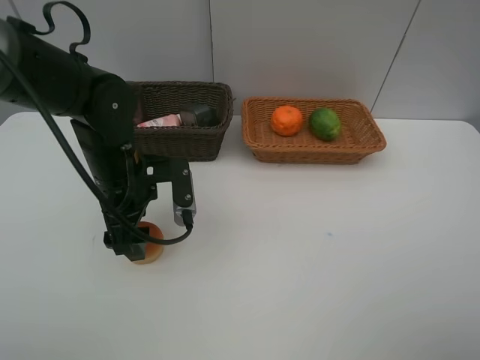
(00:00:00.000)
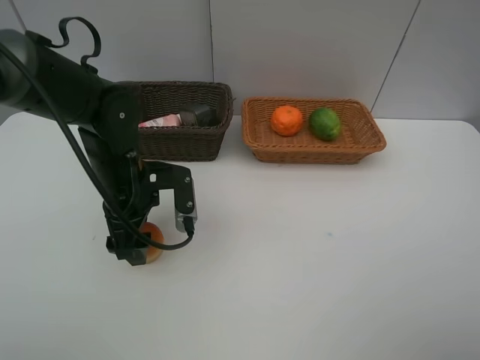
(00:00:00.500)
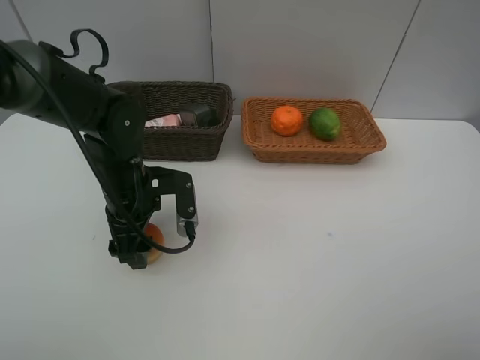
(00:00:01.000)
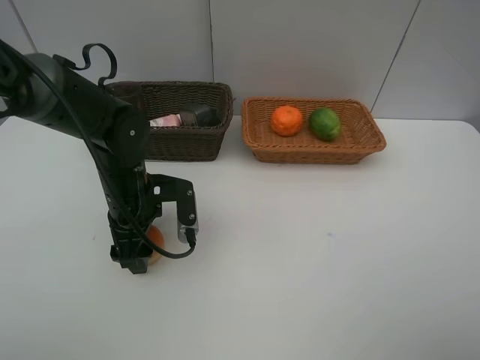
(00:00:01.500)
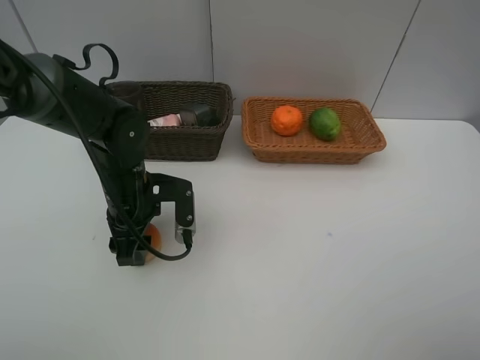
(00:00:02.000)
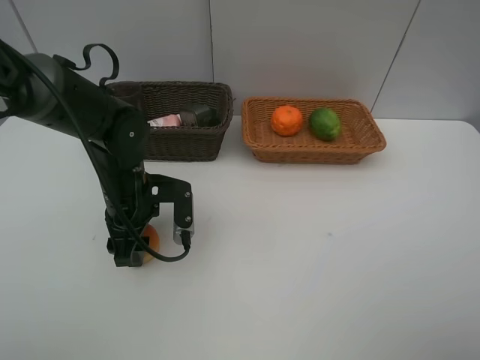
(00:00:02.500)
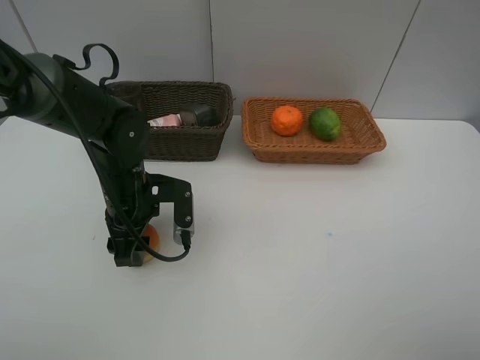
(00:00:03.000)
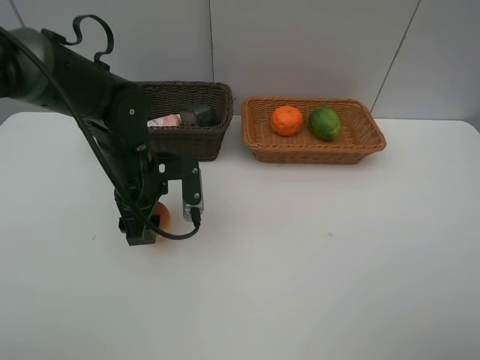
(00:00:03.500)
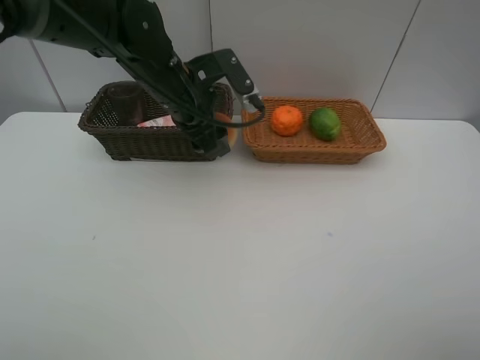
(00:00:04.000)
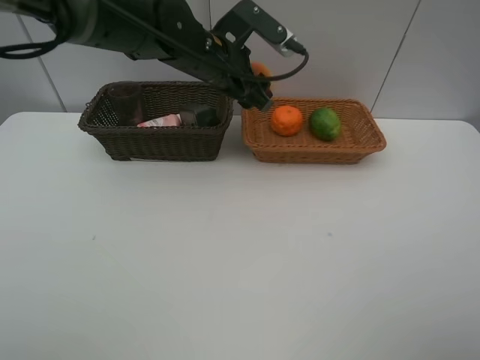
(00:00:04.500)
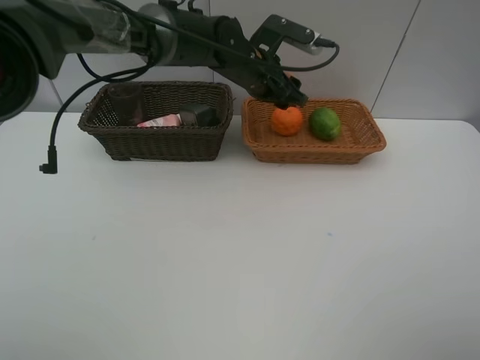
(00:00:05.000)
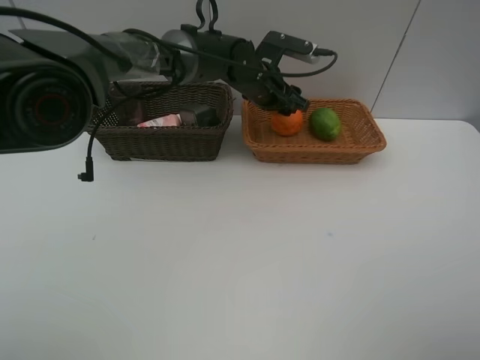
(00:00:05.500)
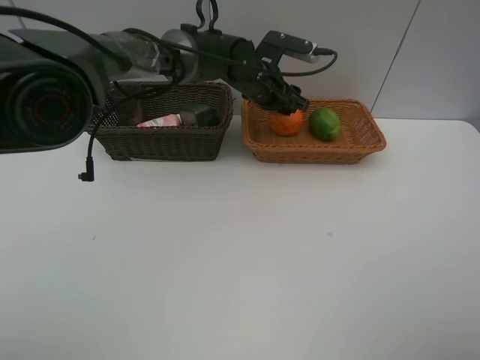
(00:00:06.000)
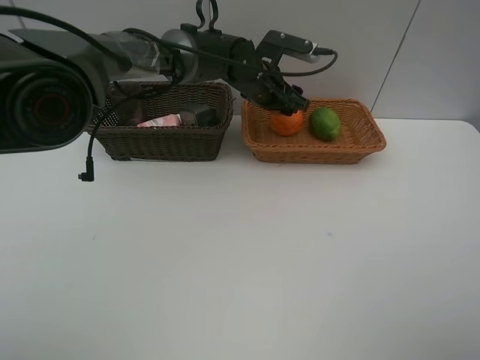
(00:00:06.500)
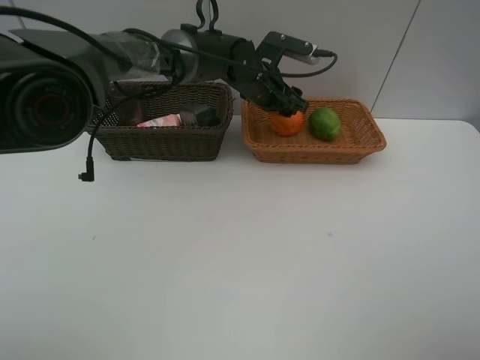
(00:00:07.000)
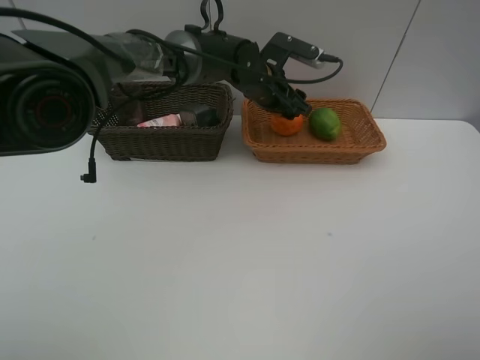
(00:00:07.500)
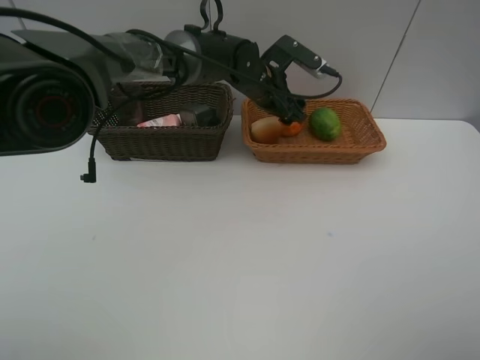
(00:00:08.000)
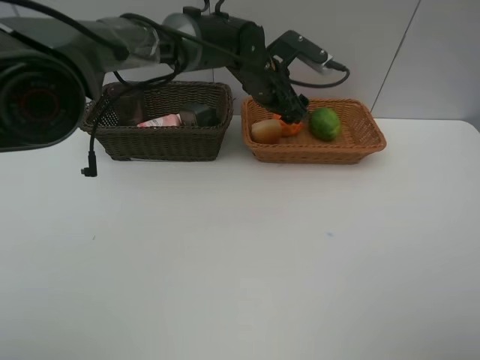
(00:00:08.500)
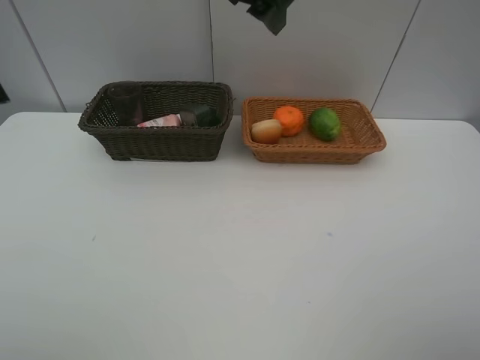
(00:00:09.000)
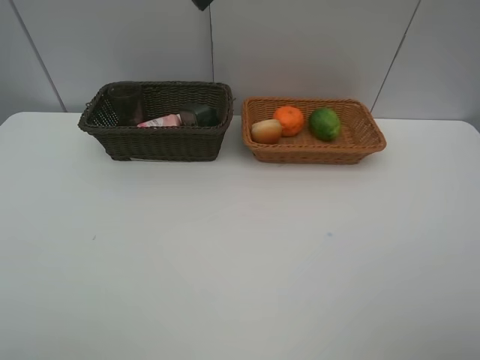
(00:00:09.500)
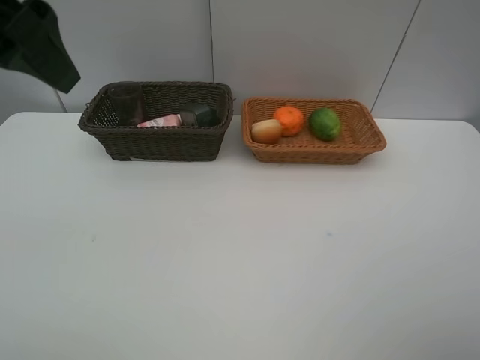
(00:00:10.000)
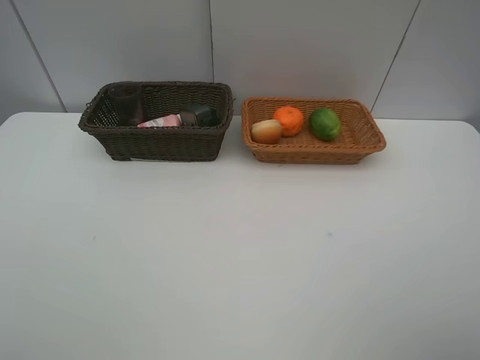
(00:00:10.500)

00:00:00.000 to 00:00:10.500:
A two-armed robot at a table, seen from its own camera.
Task of the whole recording: place multiple objects separately in different baskets.
00:00:00.000 to 00:00:02.000: The grippers stay close to where they were, moving slightly.
00:00:02.000 to 00:00:04.000: The left gripper shifts roughly 15 cm upward, forward and to the right.
00:00:04.000 to 00:00:06.500: The left gripper goes approximately 15 cm to the right and forward.
00:00:06.500 to 00:00:08.500: The grippers move only a little.
00:00:08.500 to 00:00:10.500: The left gripper is displaced backward, to the left and upward by approximately 50 cm.

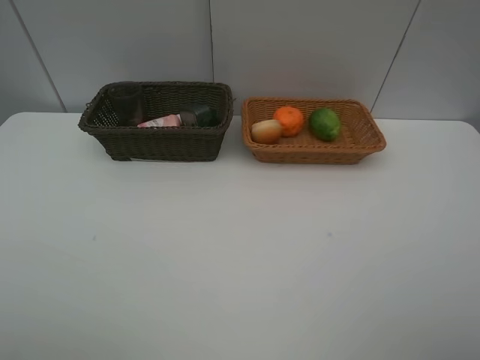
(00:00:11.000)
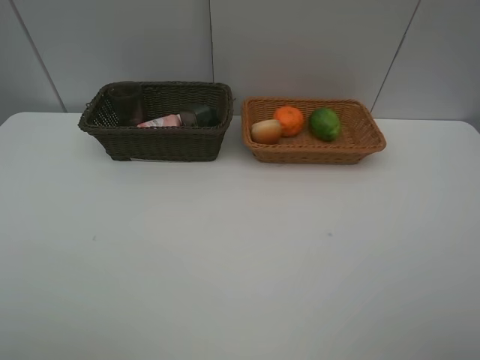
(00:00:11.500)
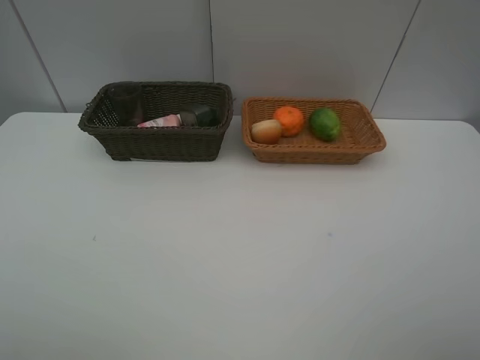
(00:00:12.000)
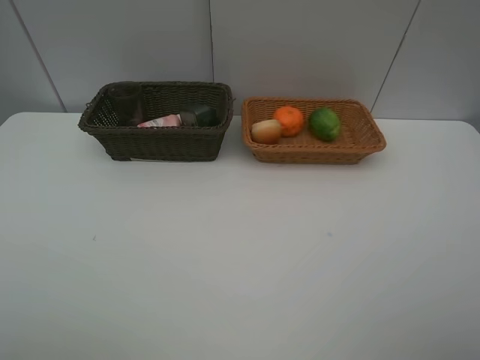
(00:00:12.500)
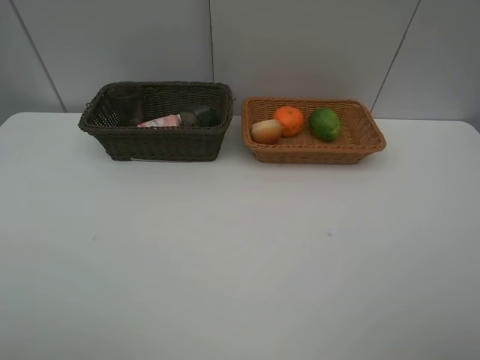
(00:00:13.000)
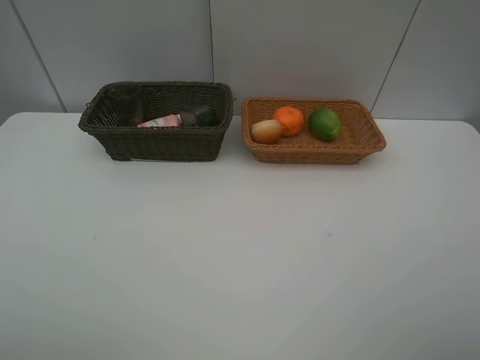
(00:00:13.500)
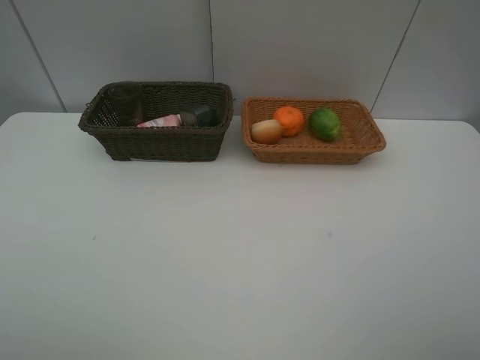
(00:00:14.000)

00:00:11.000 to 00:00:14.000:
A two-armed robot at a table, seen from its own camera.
Task of the whole recording: place multiple objects separately in different baskets.
00:00:12.500 to 00:00:14.000: Both grippers stay put.

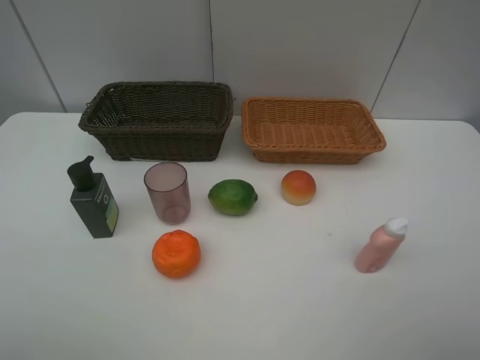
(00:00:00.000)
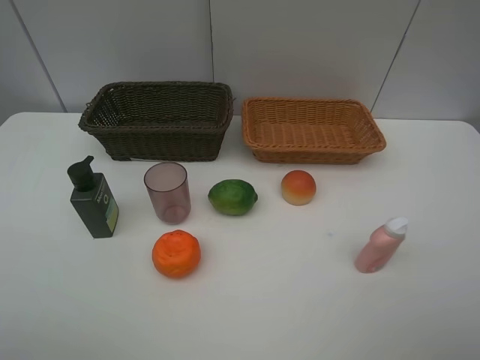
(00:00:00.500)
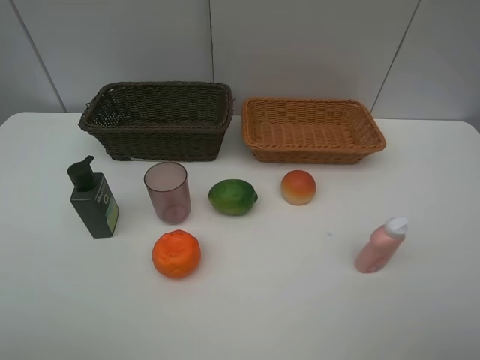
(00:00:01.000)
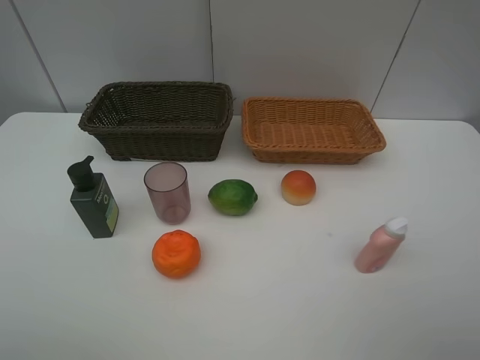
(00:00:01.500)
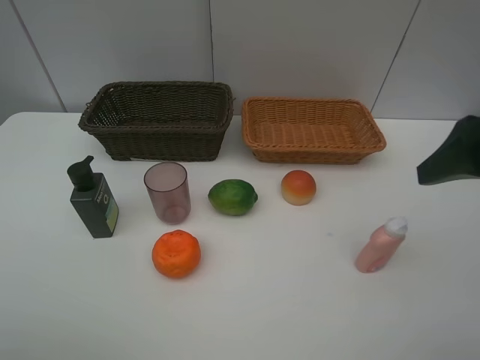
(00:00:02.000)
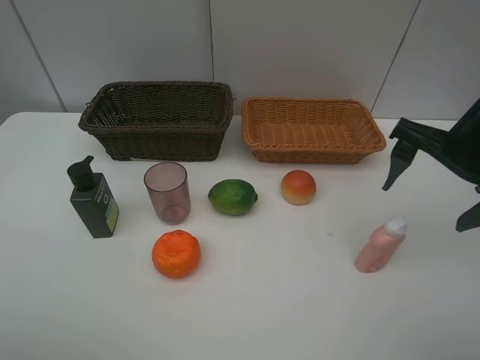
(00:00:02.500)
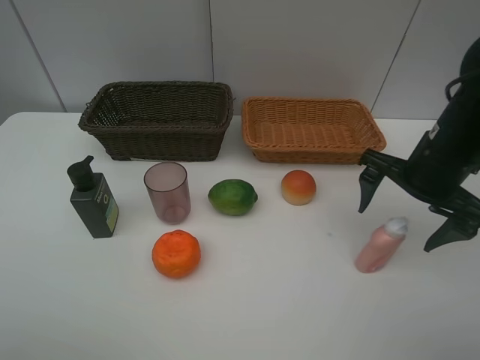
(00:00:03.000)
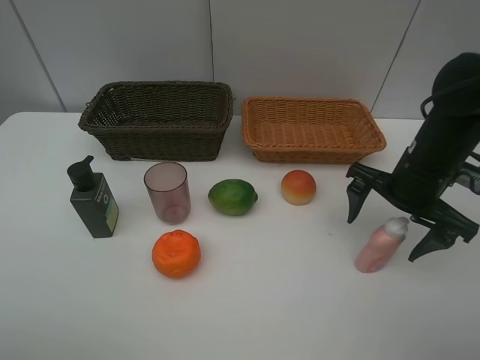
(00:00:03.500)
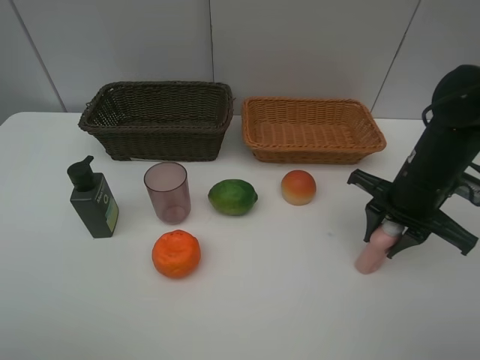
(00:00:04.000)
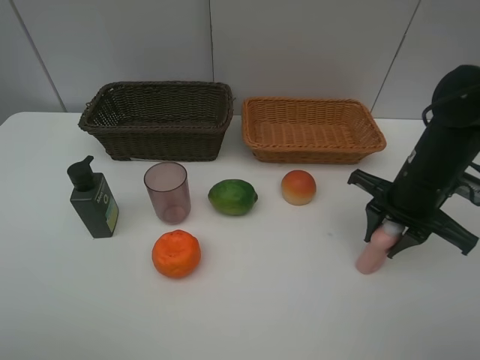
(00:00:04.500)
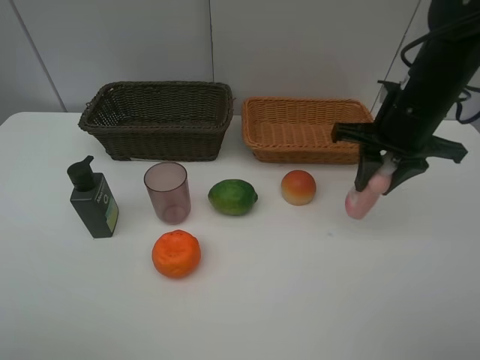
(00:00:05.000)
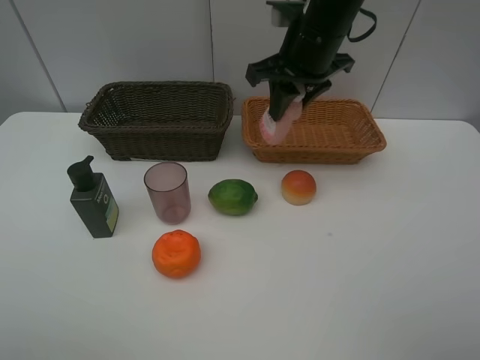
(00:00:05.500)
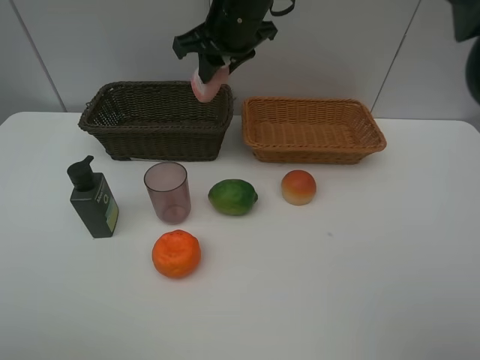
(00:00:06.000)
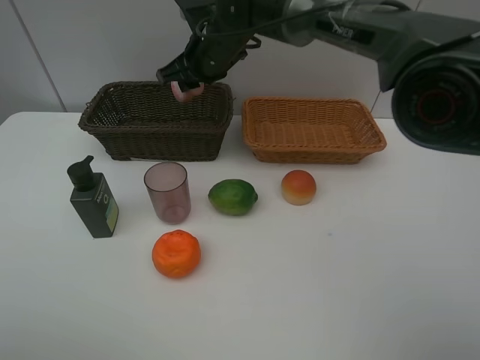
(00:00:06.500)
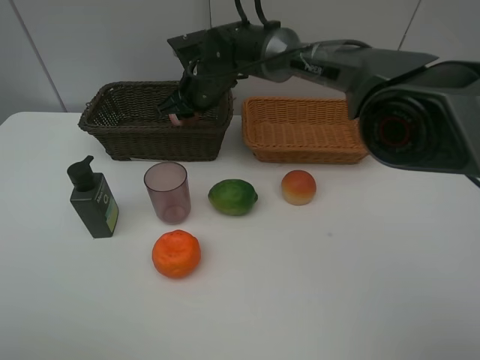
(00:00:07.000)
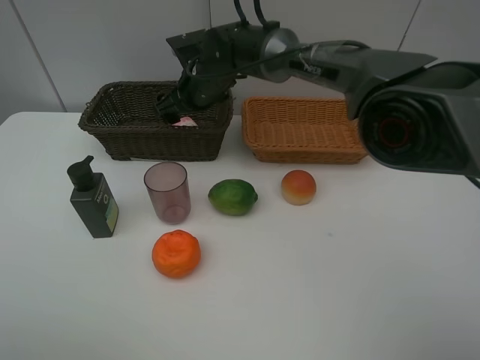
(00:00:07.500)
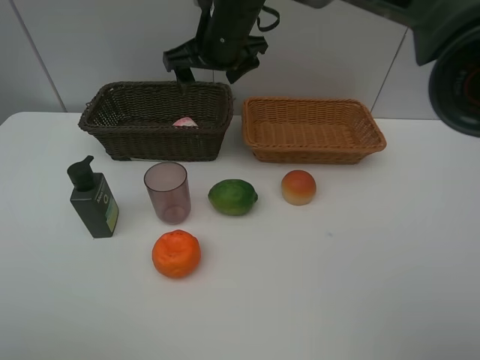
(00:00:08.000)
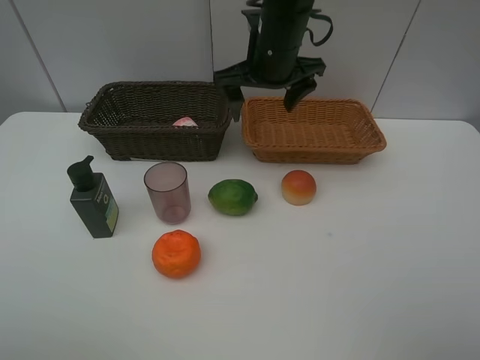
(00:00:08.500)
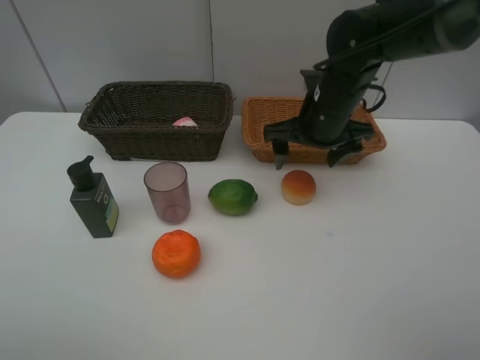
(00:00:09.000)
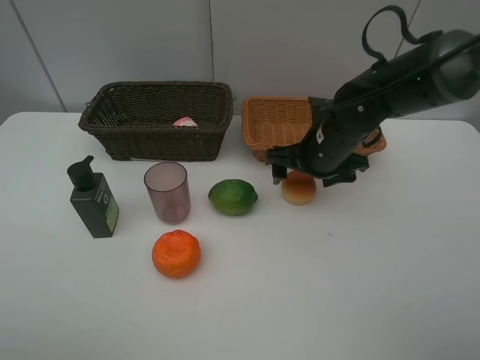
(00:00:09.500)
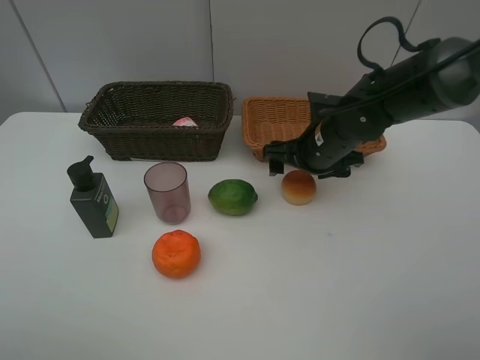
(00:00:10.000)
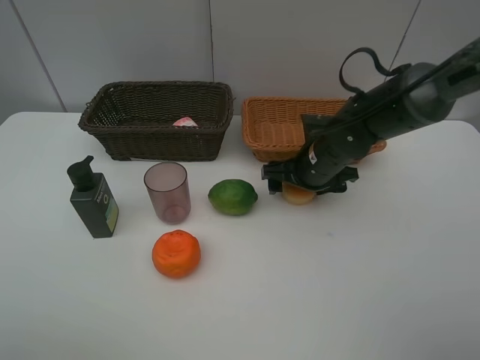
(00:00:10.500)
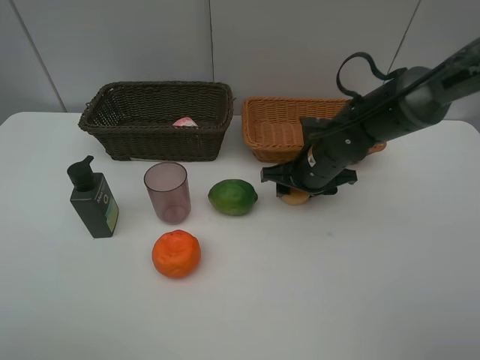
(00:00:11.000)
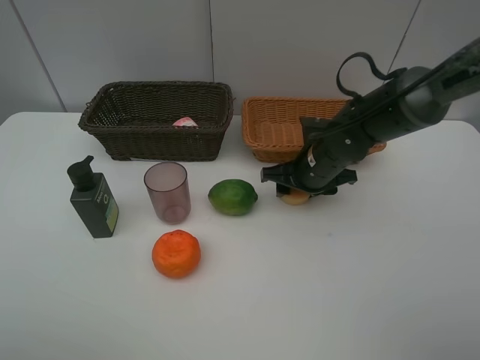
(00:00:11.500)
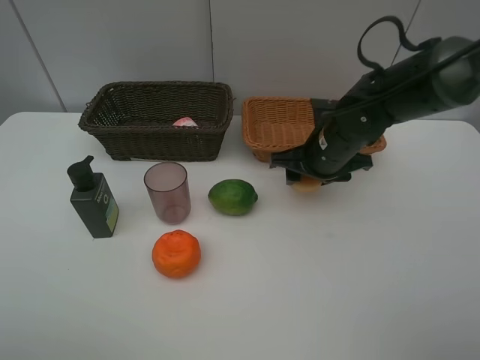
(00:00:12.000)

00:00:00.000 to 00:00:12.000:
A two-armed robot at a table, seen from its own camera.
Task of the whole recording: place multiple objects separately in different baskets.
Step, 00:00:00.000 to 00:00:04.500: Pick up the laundry detergent with right gripper.
Step, 00:00:05.000 to 00:00:07.500: Place the laundry detergent in the dark basket with right gripper.
Step, 00:00:08.000 to 00:00:12.000: Pick up the bread with right gripper.
00:00:00.000 to 00:00:02.000: The right gripper heads forward, covering about 15 cm.
00:00:02.000 to 00:00:04.000: The right gripper travels downward and forward by approximately 15 cm, and closes.
00:00:04.000 to 00:00:06.000: The right gripper moves to the left, forward and upward, roughly 30 cm.
00:00:06.000 to 00:00:08.000: The right gripper travels downward and back again, roughly 10 cm each way, and opens up.
00:00:08.000 to 00:00:10.000: The right gripper goes approximately 20 cm to the right, downward and backward.
00:00:10.000 to 00:00:12.000: The right gripper closes.
